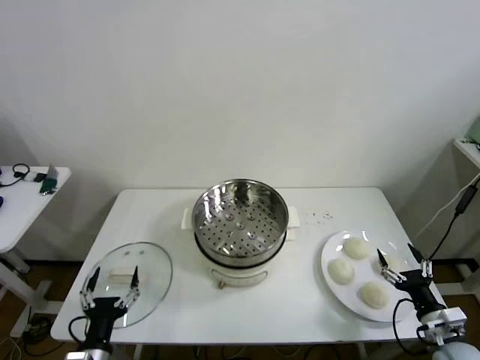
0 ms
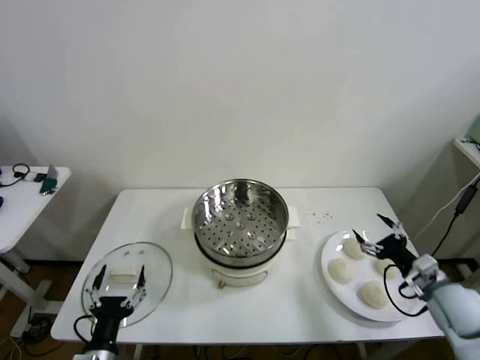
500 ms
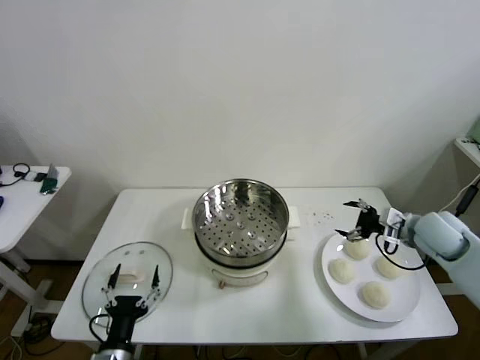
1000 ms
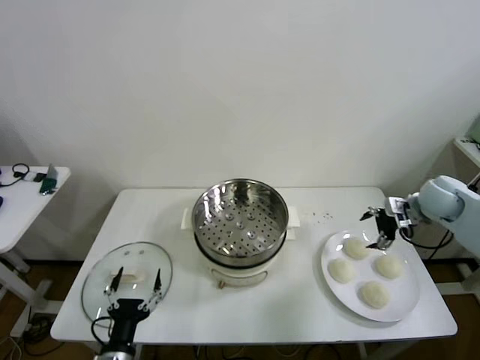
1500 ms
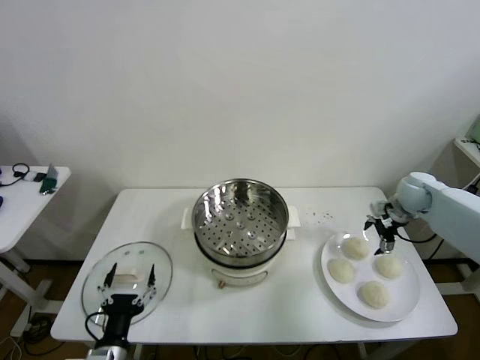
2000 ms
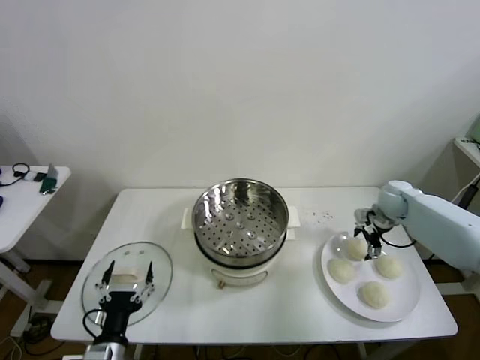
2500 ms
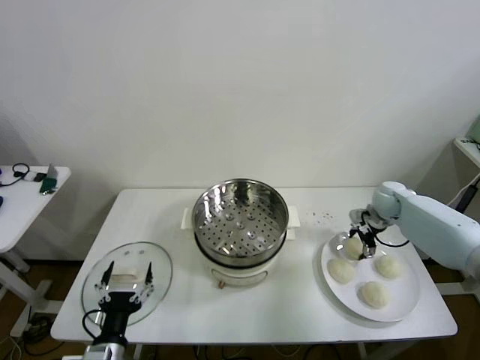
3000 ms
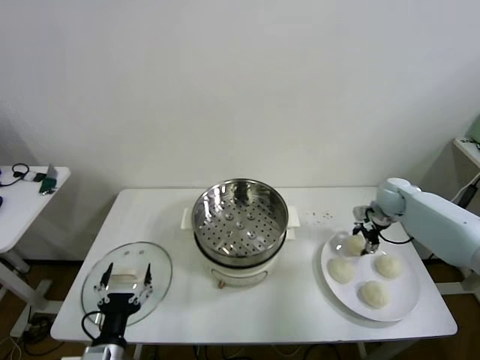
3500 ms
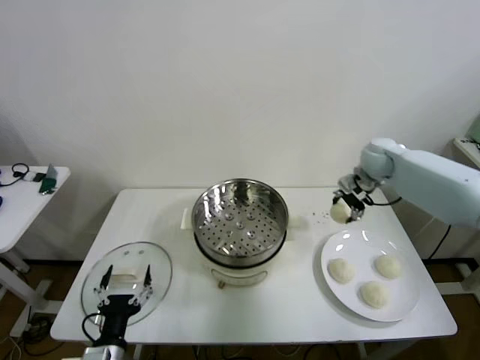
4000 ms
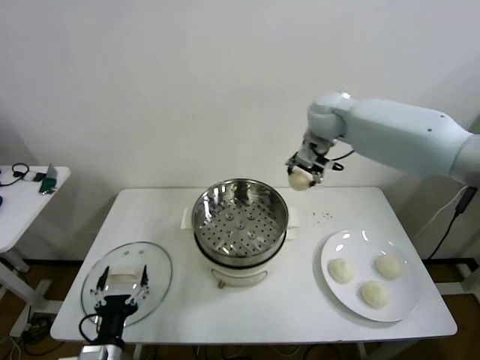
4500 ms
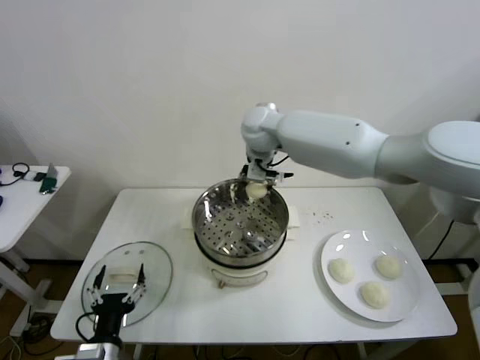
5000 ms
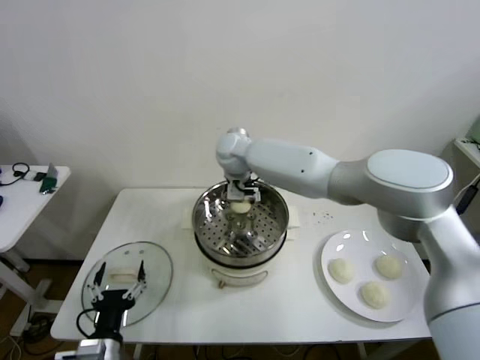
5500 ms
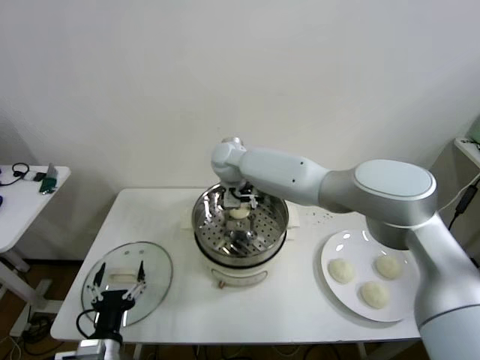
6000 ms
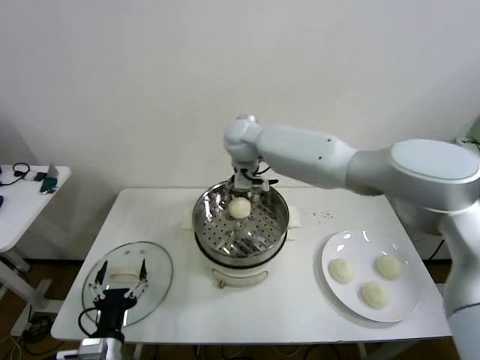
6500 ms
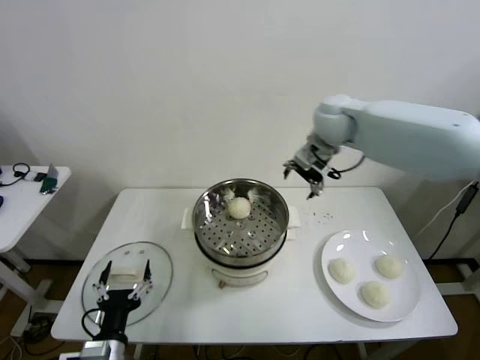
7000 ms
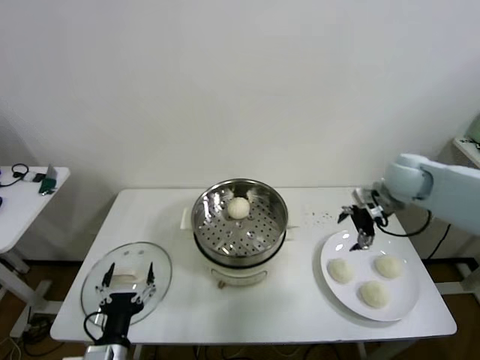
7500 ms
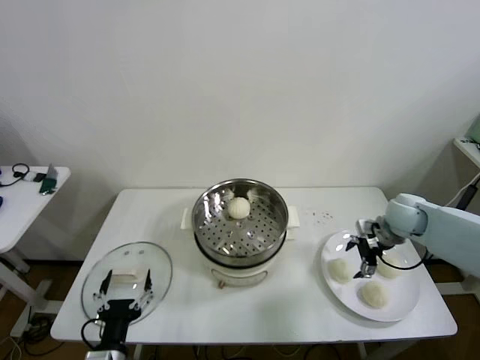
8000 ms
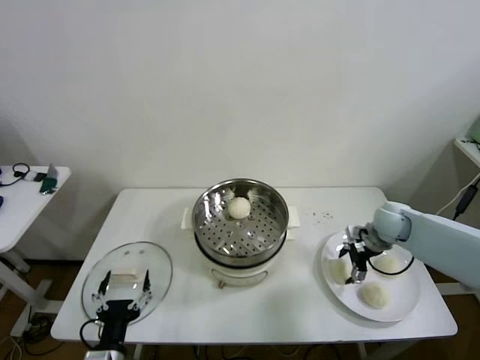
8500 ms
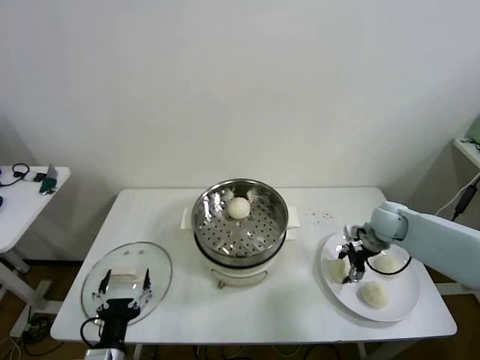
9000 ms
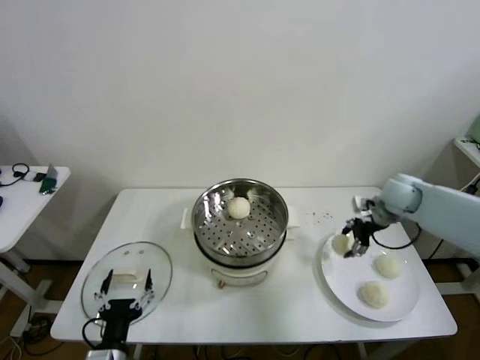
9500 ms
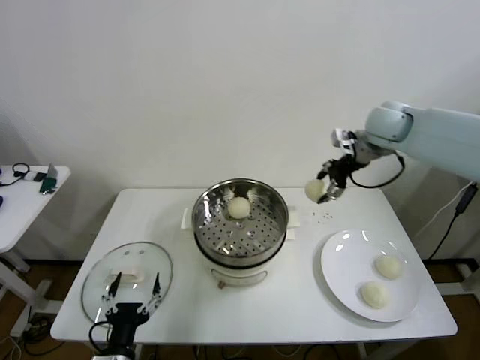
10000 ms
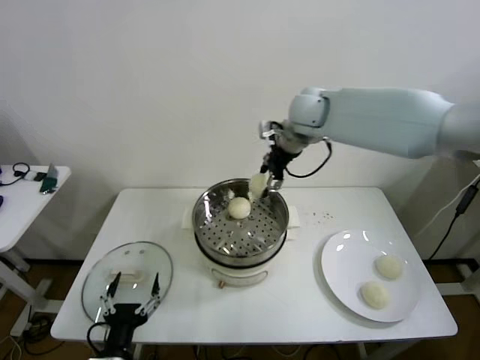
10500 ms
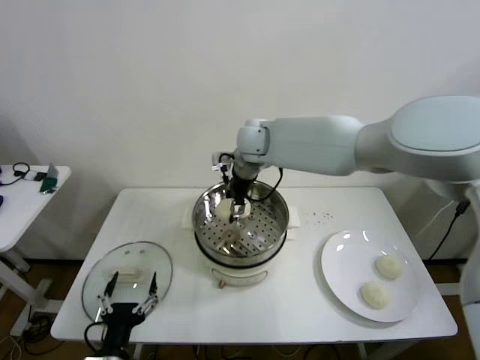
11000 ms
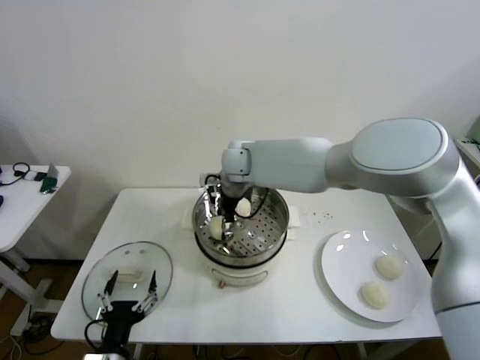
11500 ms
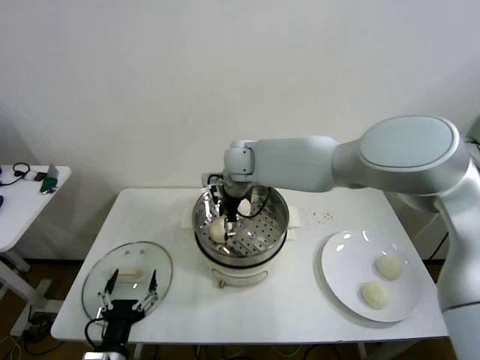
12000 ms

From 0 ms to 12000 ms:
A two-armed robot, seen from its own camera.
Step, from 0 ms to 3000 ms: Grasp the baozi in the plate with right gripper.
Step, from 3500 ms to 5500 ms: Place the baozi on the steamer with right gripper.
Step, from 6000 ms to 8500 ms: Grasp the baozi in the plate with right gripper.
Step, from 9000 ms to 11500 ms: Place the baozi on the steamer with right gripper.
From 2000 ms to 4000 ms: The right gripper moves upward, to the left and forward, roughly 15 cm, and closes up.
From 4000 ms to 6000 ms: The right gripper heads to the left, covering roughly 35 cm, and opens up.
From 6000 ms to 8000 ms: The right gripper moves to the right, roughly 40 cm.
From 8000 ms to 10000 ms: The right gripper shifts some 25 cm upward, to the left and forward, and closes its fingers.
From 10000 ms to 12000 ms: The right gripper goes some 30 cm to the left, and opens its fingers.

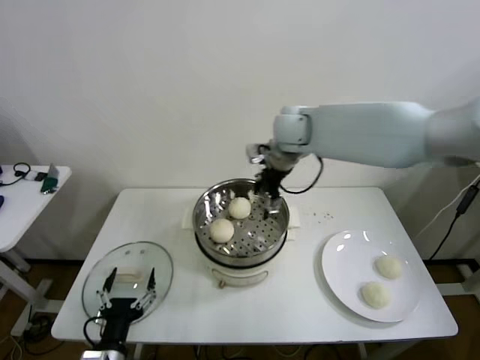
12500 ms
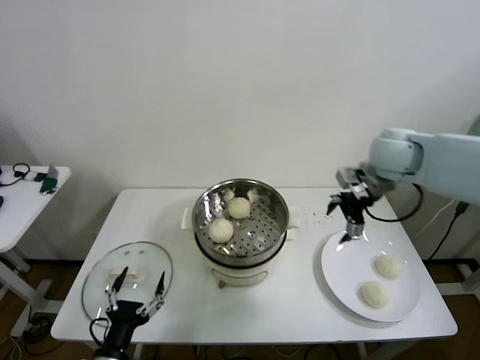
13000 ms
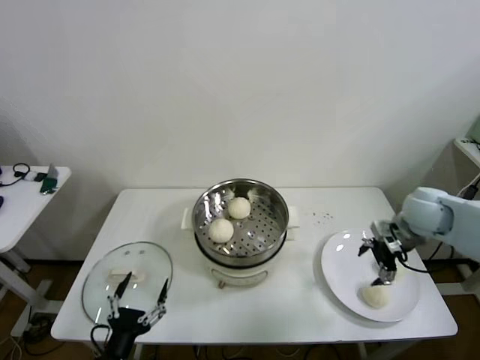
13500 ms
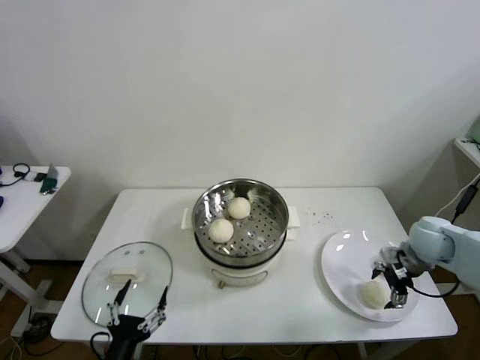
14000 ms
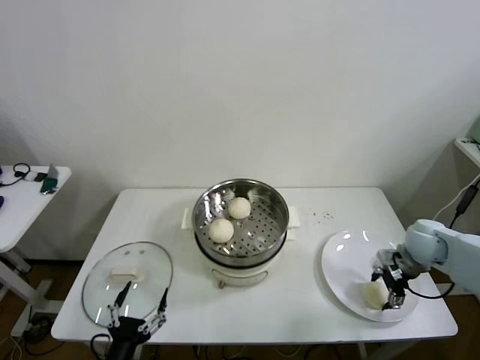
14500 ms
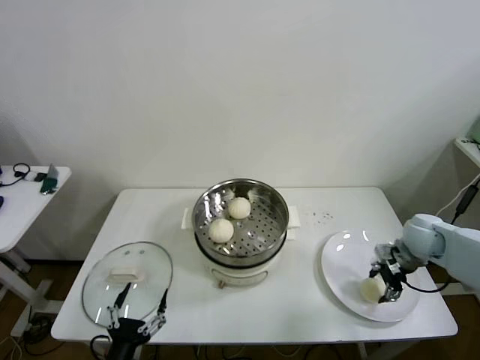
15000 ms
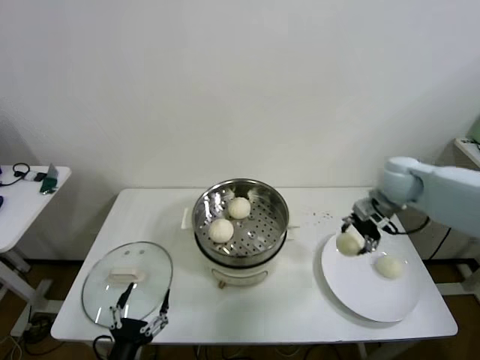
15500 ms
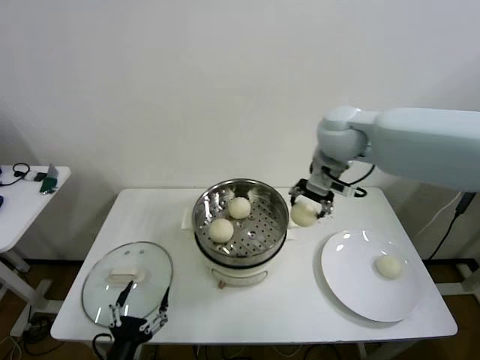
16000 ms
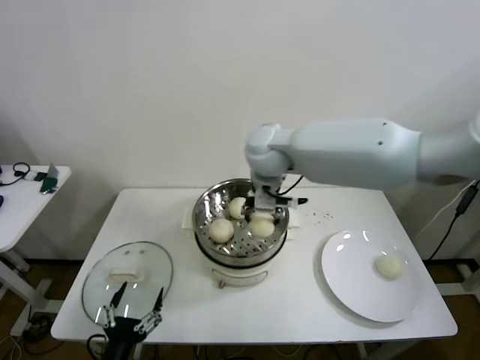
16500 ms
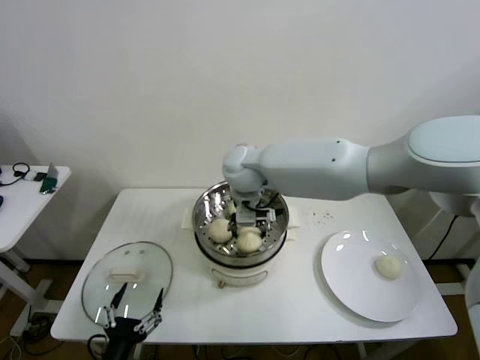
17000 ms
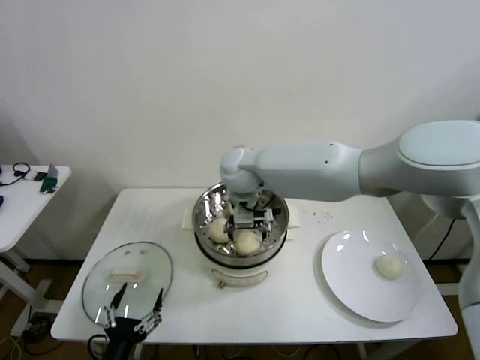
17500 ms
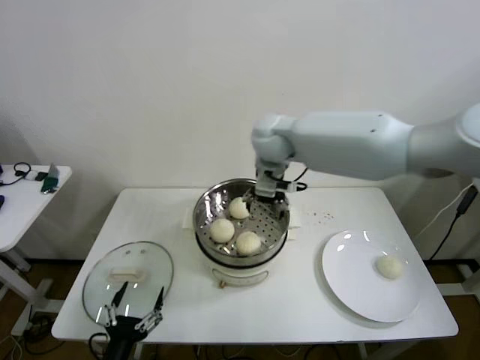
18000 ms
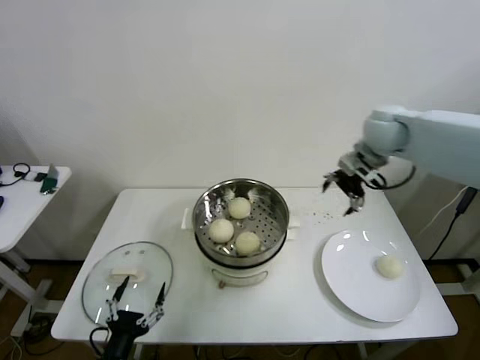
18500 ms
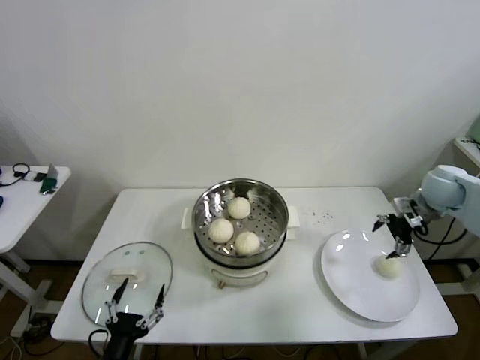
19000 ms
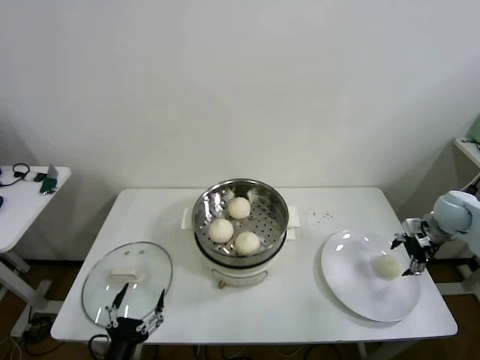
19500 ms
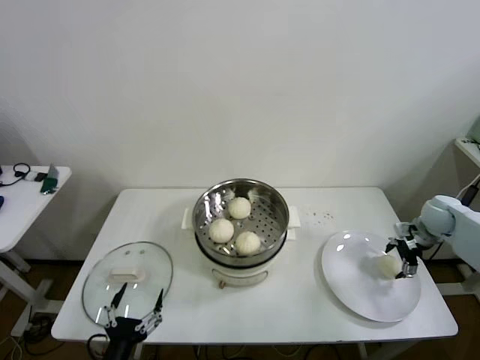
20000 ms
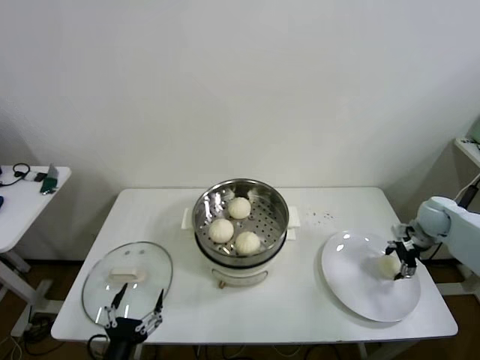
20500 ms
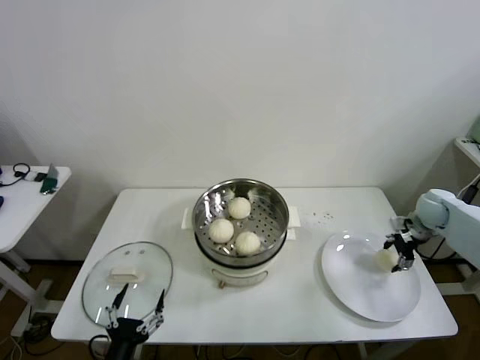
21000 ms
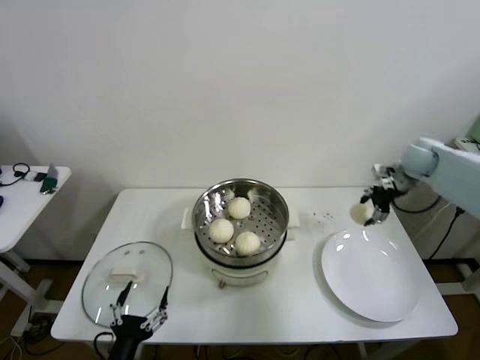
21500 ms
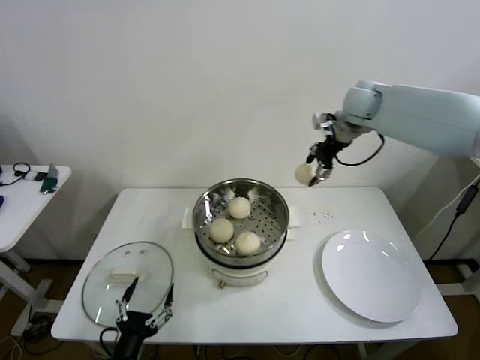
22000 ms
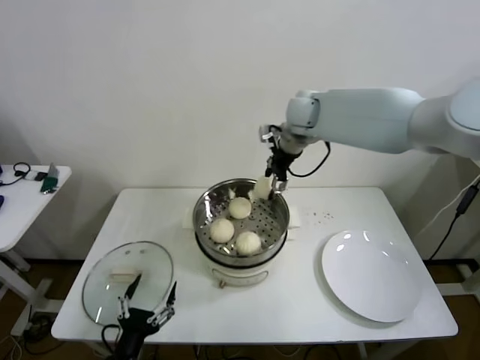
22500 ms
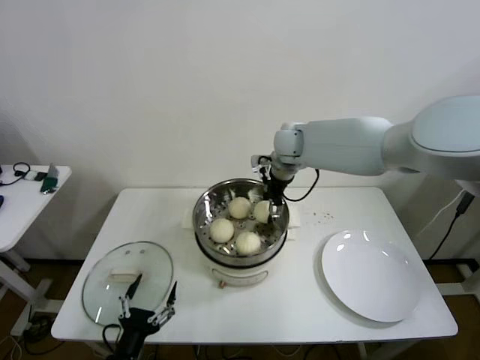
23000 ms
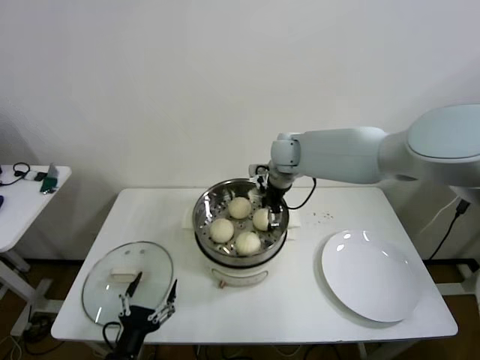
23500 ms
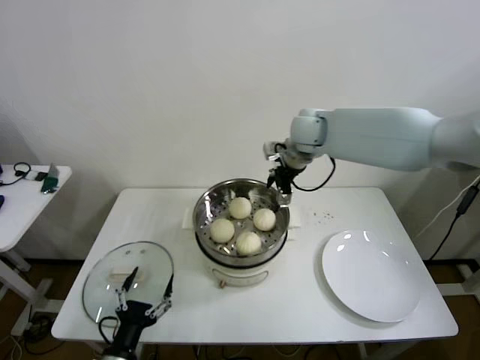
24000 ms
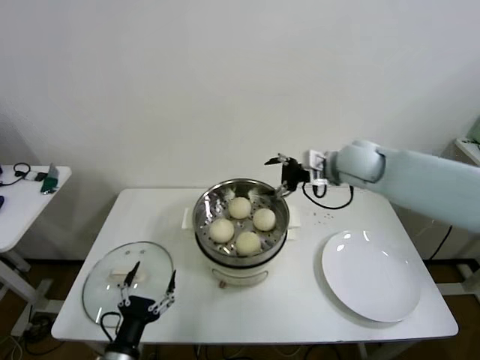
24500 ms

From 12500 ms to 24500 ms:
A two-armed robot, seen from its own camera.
Step, from 12500 ms to 14500 ms: Grasp the baozi in the plate with right gripper.
Step, from 15000 ms to 17000 ms: Place the baozi on the steamer with right gripper.
Step, from 17500 ms to 20500 ms: Grasp the baozi in the plate with right gripper.
Step, from 21000 ms to 23500 ms: Place the baozi on the steamer with right gripper.
From 12500 ms to 14500 ms: The right gripper shifts roughly 40 cm to the right, downward and backward, and closes.
From 14500 ms to 16500 ms: The right gripper goes roughly 40 cm to the left and upward.
From 16500 ms to 18500 ms: The right gripper is displaced to the right by roughly 25 cm, and opens its fingers.
From 18500 ms to 20500 ms: The right gripper heads downward and to the right, covering approximately 30 cm, and closes its fingers.
From 20500 ms to 22500 ms: The right gripper goes approximately 40 cm to the left and upward.
From 22500 ms to 24500 ms: The right gripper goes some 15 cm to the right, backward and downward, and opens up.

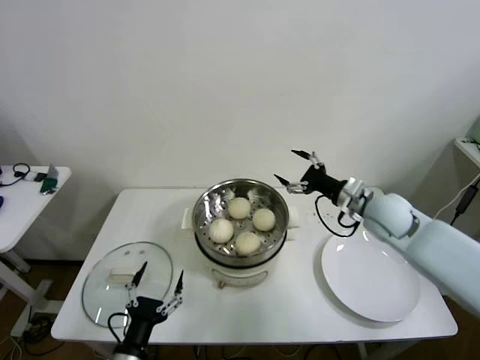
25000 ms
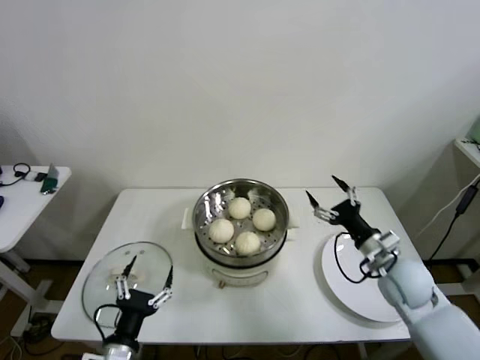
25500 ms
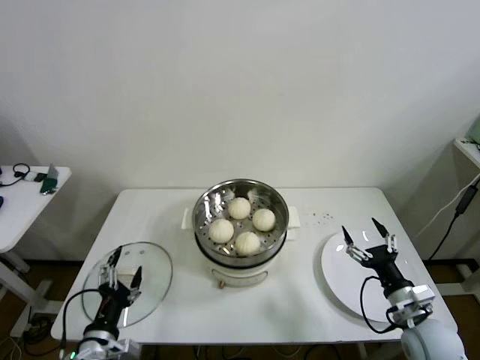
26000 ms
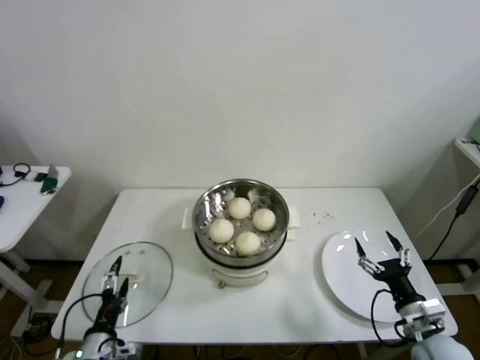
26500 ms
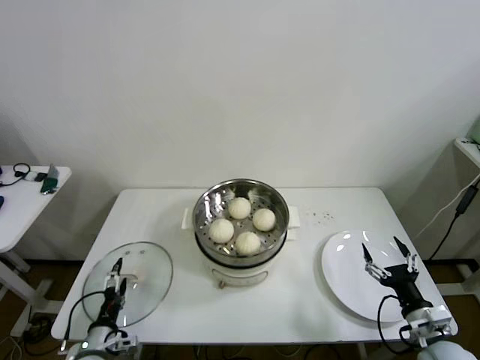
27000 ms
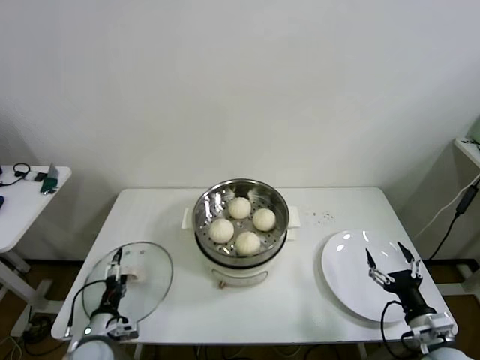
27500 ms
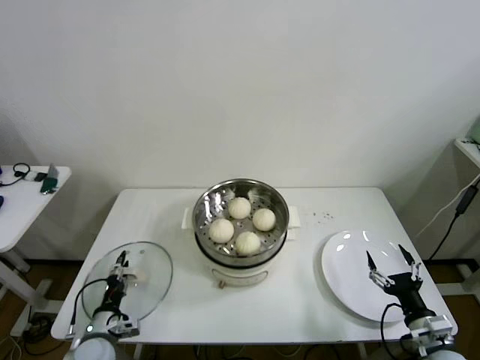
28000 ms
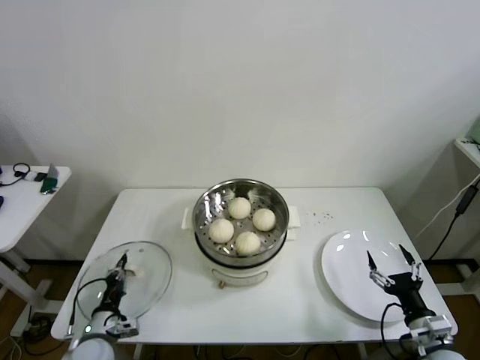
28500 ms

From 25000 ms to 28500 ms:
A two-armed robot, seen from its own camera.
Step, from 25000 ms to 28000 ms: Grasp the pot lid with left gripper.
From 25000 ms to 27000 ms: The right gripper is displaced backward and downward by roughly 30 cm. The left gripper is displaced to the left, downward and forward by approximately 15 cm.
From 27000 ms to 28500 ms: The left gripper closes up.
